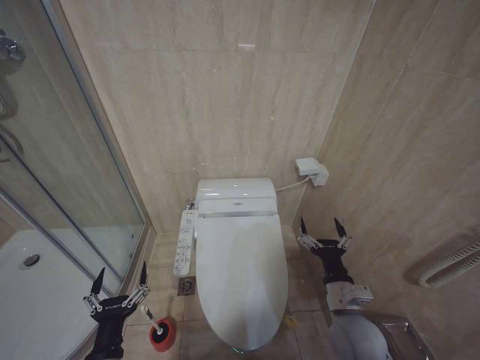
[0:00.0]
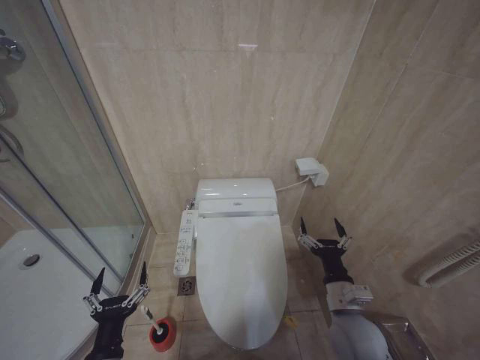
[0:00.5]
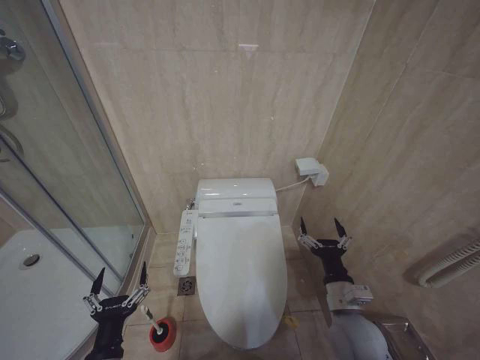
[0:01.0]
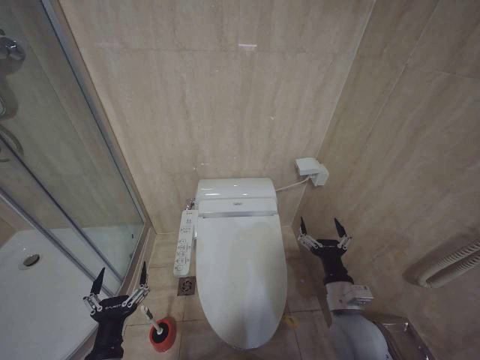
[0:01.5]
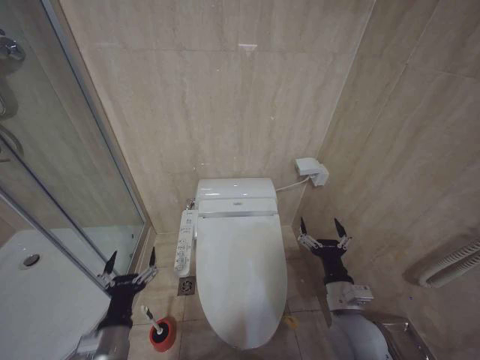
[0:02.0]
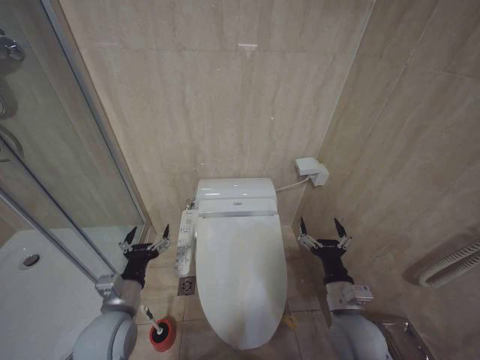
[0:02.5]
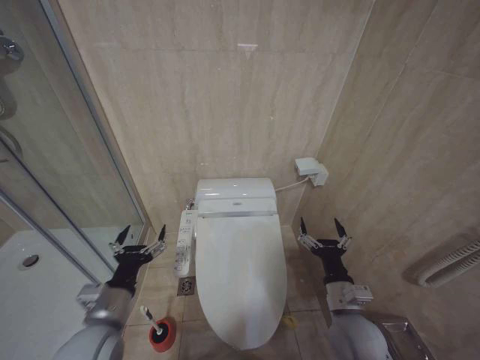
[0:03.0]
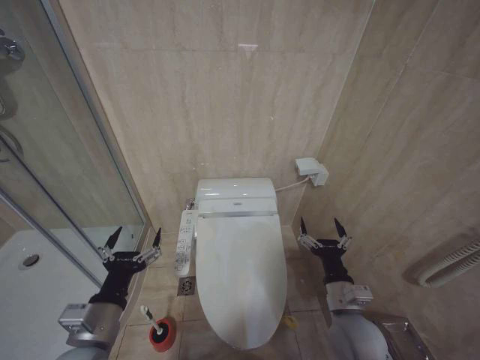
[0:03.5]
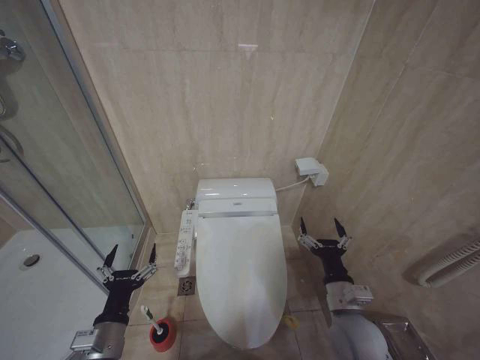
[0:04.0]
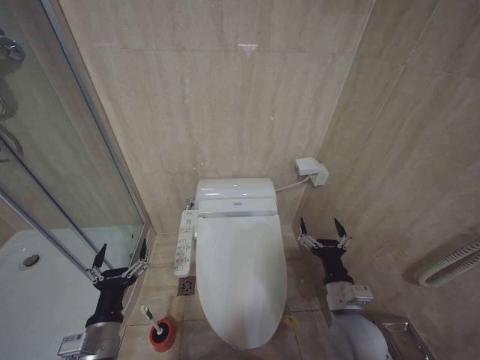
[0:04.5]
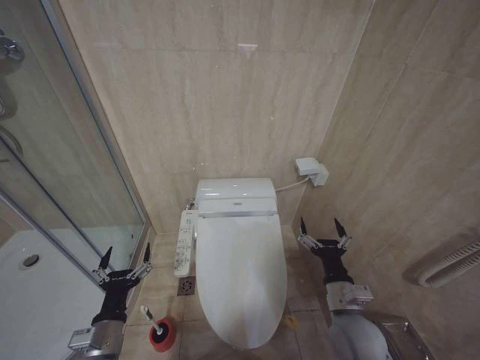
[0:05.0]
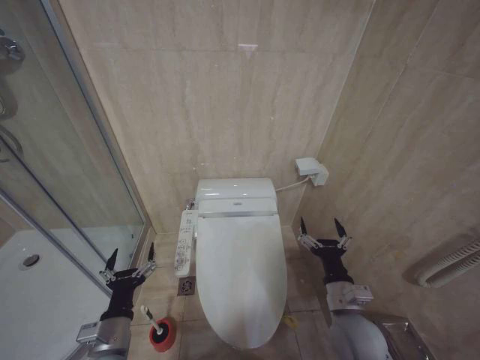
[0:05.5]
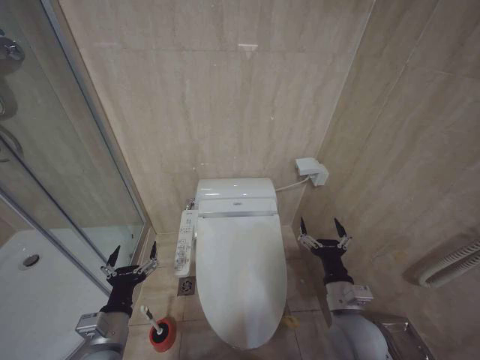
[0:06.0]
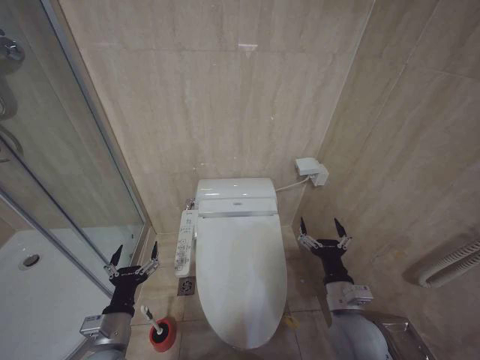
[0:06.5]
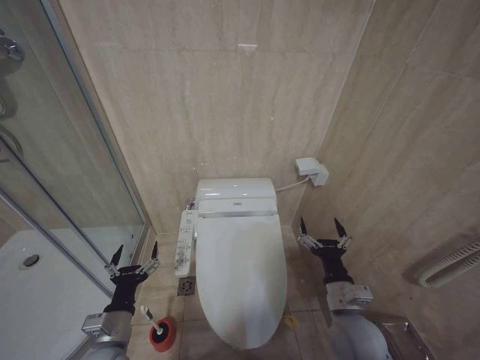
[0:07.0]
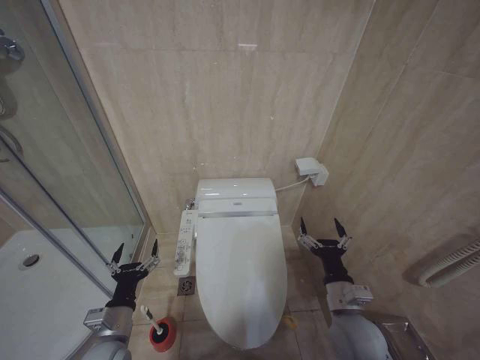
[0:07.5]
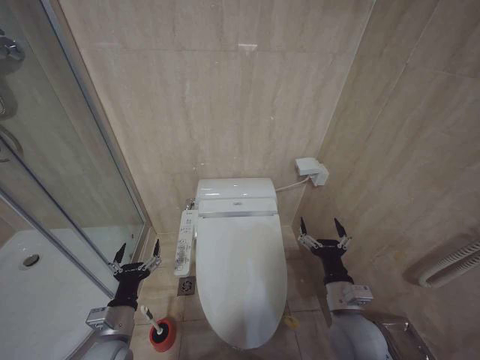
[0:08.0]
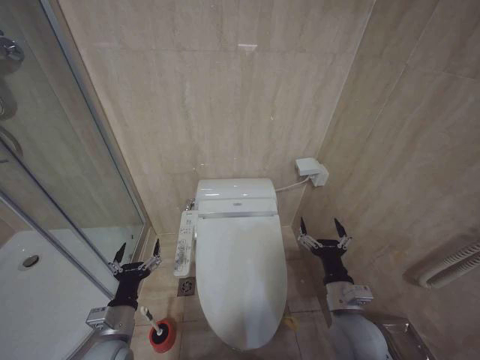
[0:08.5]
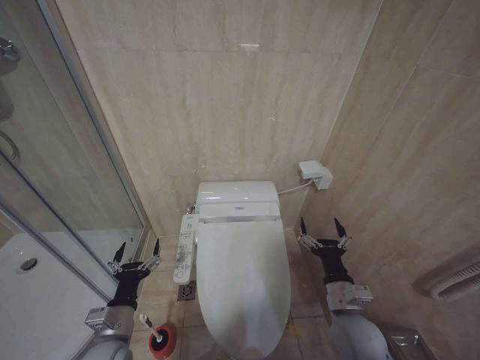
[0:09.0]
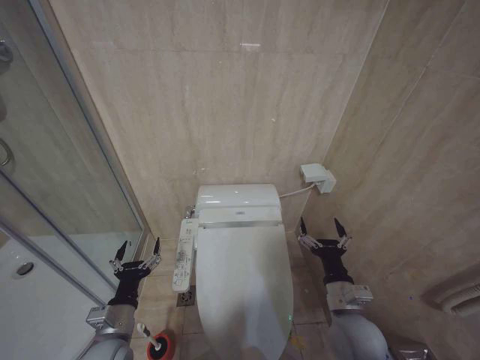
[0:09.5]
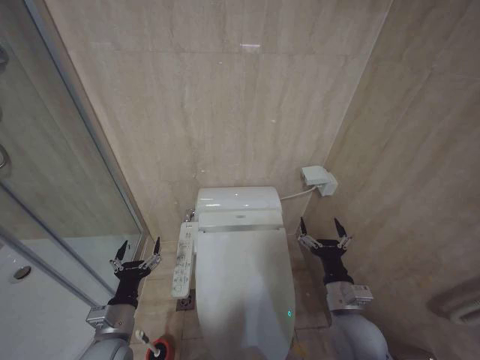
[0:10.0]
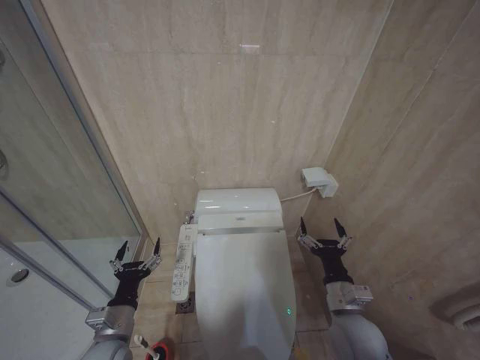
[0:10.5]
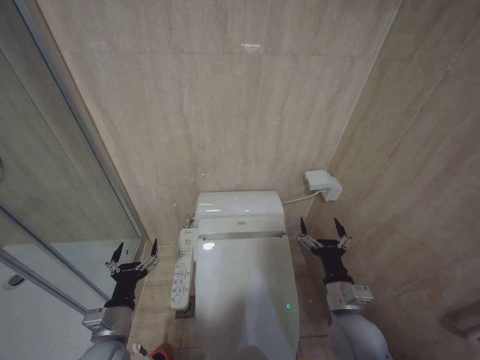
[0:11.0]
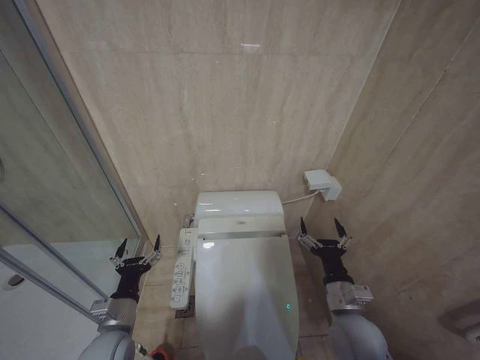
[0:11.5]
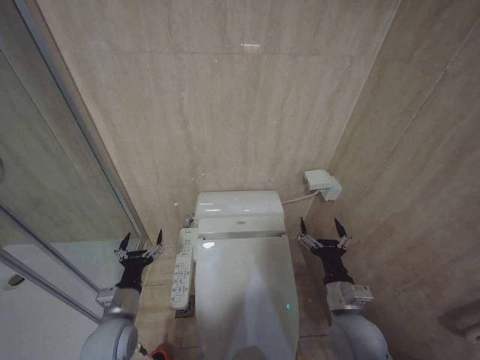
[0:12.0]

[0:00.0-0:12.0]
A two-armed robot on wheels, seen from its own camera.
Task of the whole recording: Open the toilet lid, clean the toilet bowl with a toilet brush, close the toilet lid, and flush.
0:00.0 to 0:02.0: There are only small adjustments of the grippers.
0:02.0 to 0:04.0: The left gripper reaches about 10 cm upward, then returns.
0:04.0 to 0:08.0: The grippers move only a little.
0:08.0 to 0:10.0: Neither gripper changes place.
0:10.0 to 0:12.0: There are only small adjustments of the grippers.

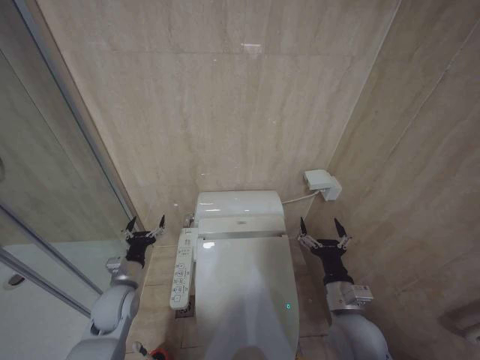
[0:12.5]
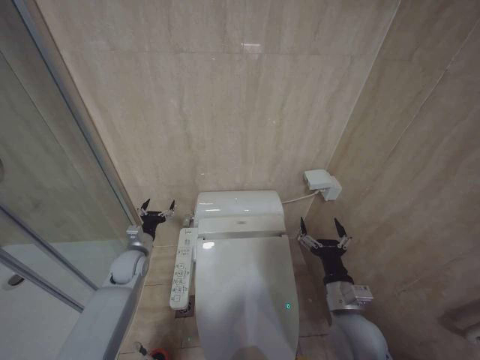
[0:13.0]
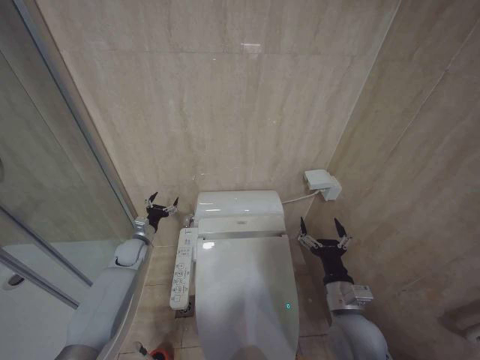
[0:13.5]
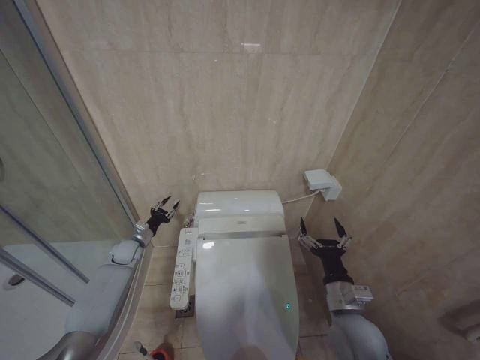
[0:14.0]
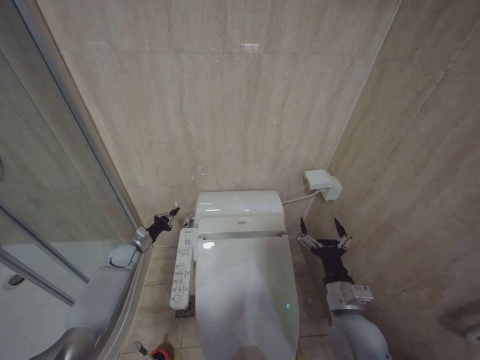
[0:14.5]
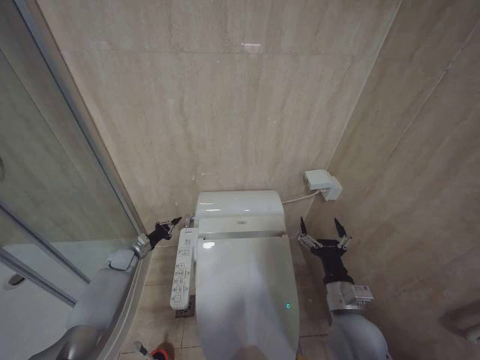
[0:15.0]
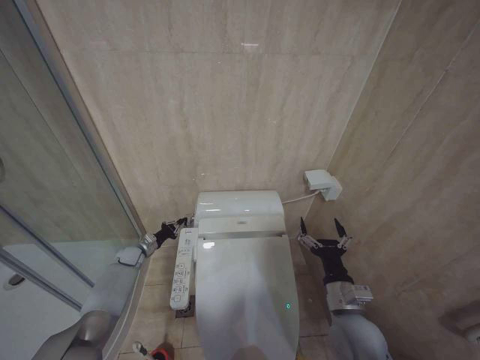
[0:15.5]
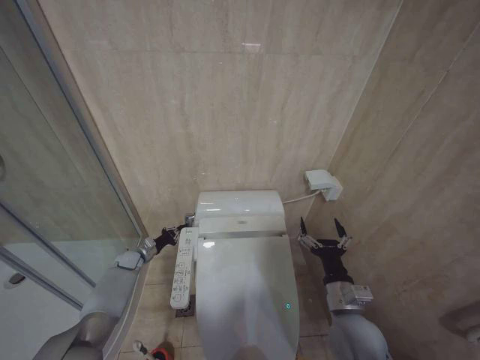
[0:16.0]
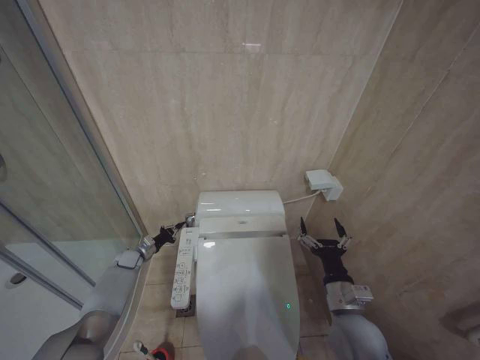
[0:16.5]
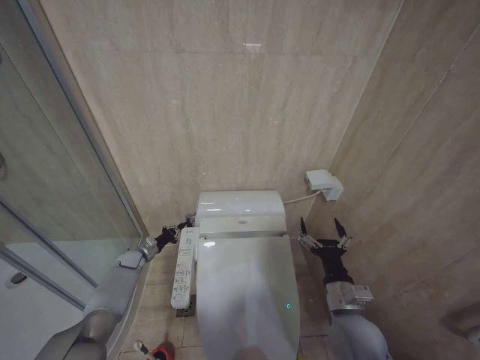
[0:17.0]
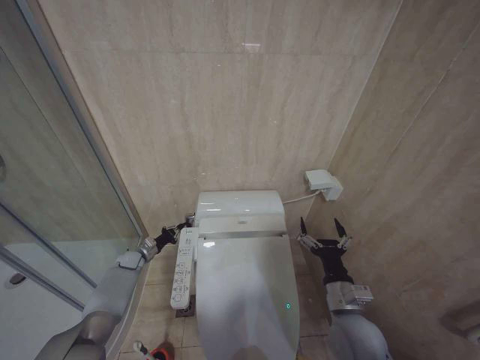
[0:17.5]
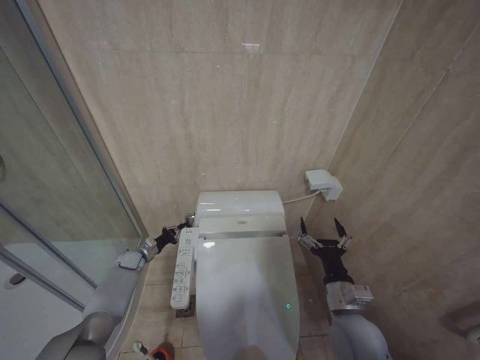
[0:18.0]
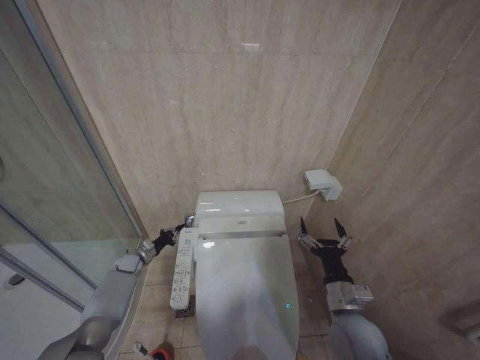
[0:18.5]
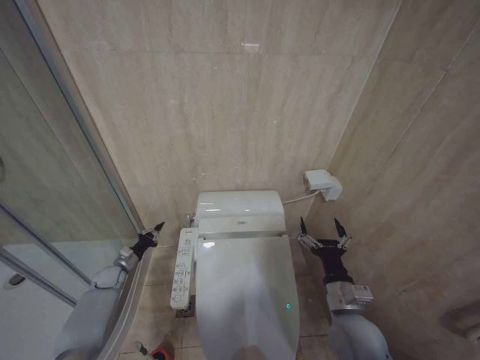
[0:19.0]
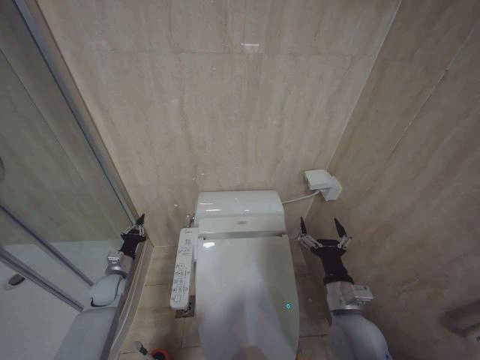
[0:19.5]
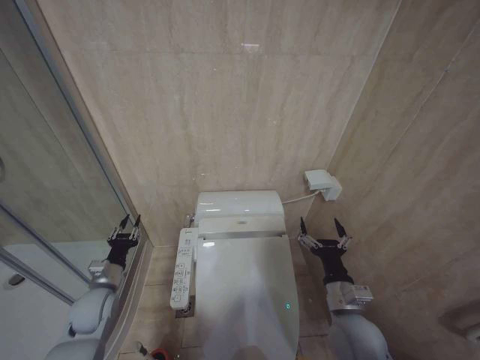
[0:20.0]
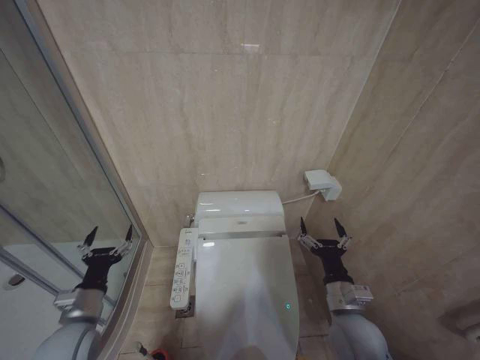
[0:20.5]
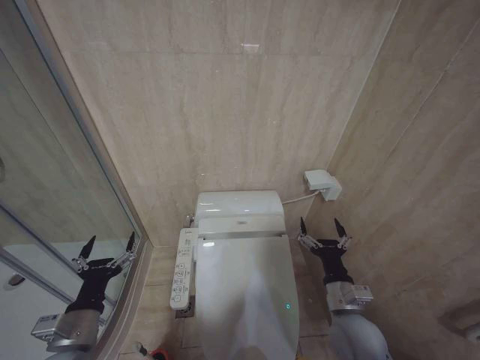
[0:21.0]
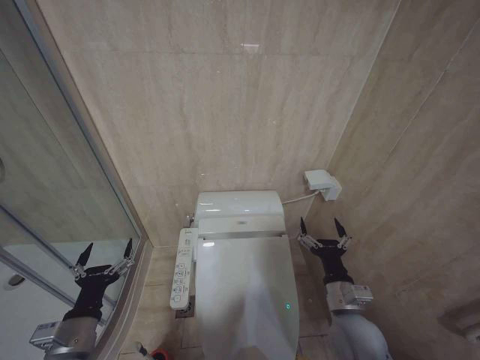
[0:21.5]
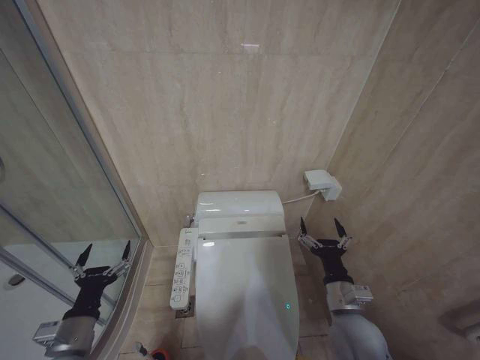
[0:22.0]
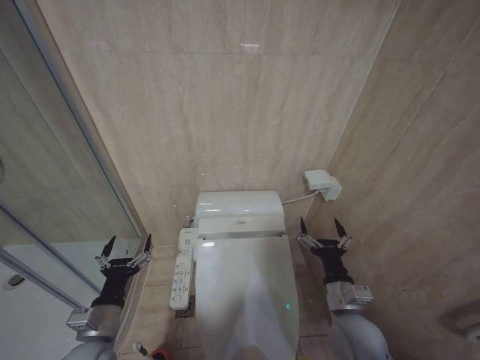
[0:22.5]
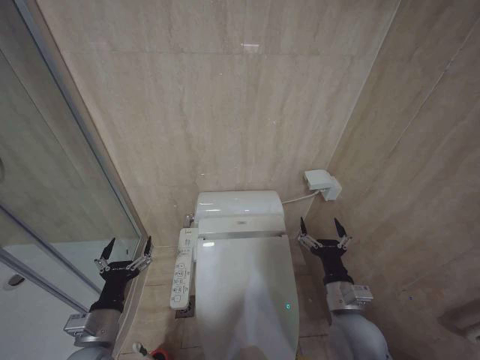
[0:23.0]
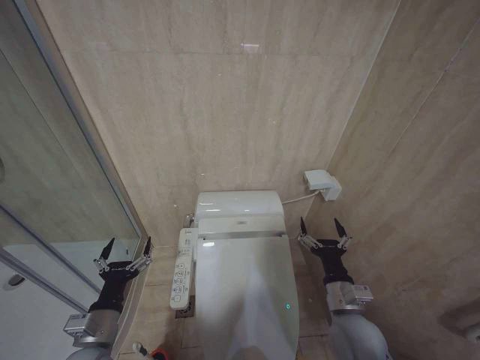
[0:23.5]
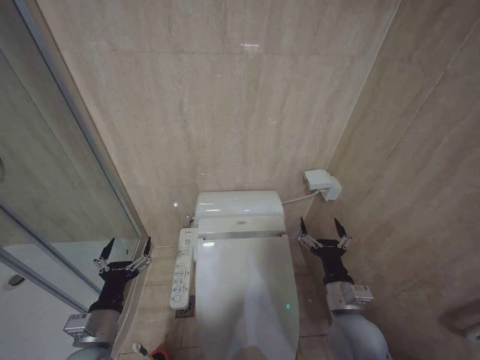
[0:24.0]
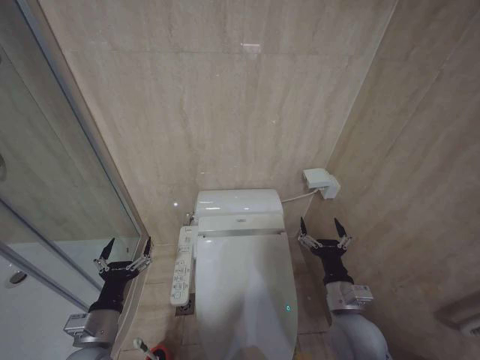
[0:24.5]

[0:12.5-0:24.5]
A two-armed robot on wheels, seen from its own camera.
Task of the whole recording: Open the toilet lid, clean the toilet bowl with a toilet brush, close the toilet lid, and flush.
0:12.5 to 0:14.5: The left gripper moves forward and to the left, roughly 20 cm, and closes its fingers.
0:14.5 to 0:16.5: The left gripper is displaced downward by roughly 5 cm.
0:16.5 to 0:18.5: Both grippers stay put.
0:18.5 to 0:20.5: The left gripper moves backward and upward, roughly 30 cm, and opens.
0:20.5 to 0:22.5: The left gripper ends up roughly 5 cm from where it was.
0:22.5 to 0:24.5: The two grippers keep their place.

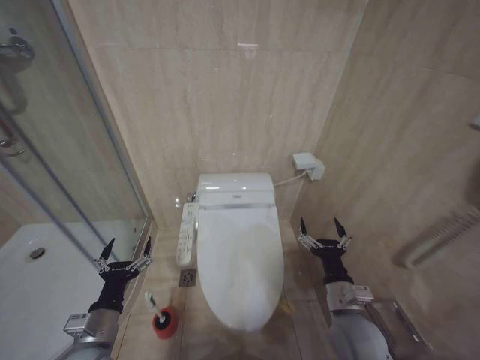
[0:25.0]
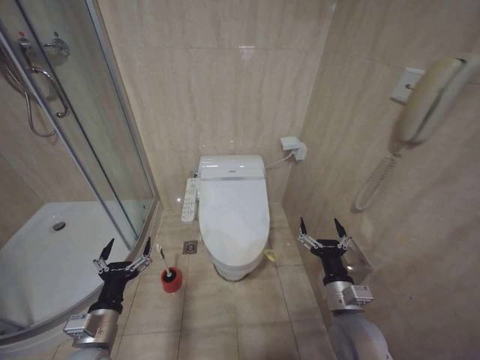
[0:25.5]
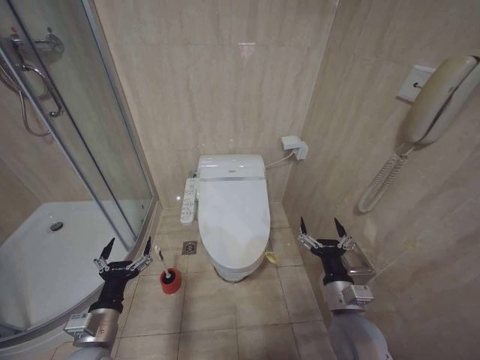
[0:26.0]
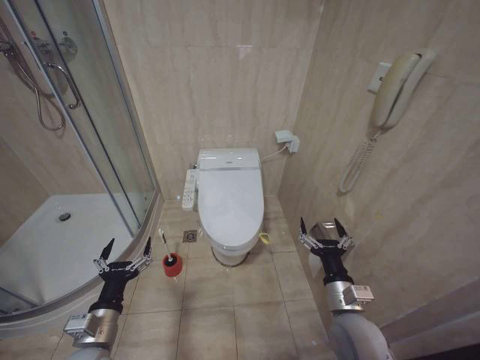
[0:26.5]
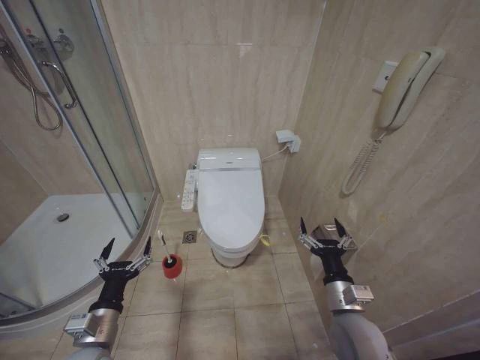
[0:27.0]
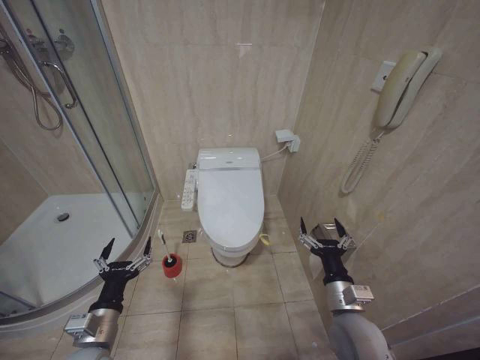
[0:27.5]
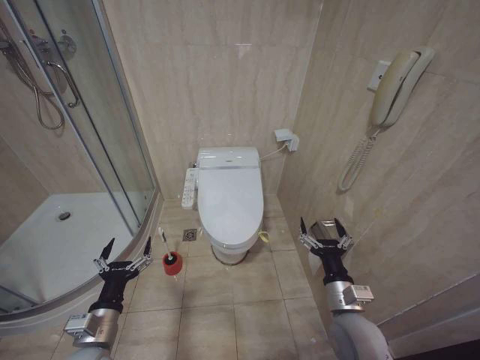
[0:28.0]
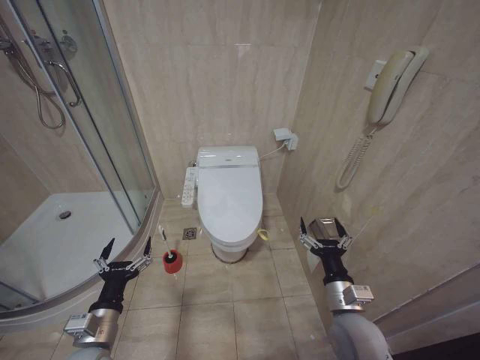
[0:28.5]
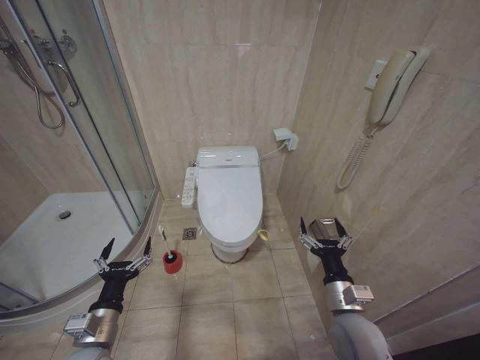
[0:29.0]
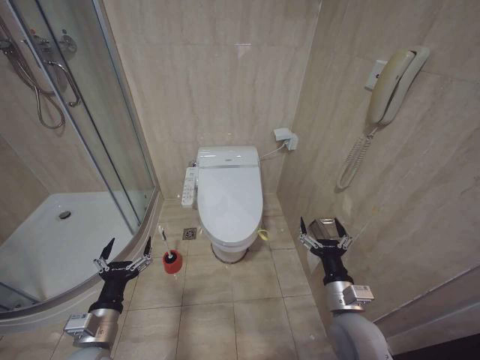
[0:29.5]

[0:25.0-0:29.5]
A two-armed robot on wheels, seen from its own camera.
Task of the whole recording: Open the toilet lid, clean the toilet bowl with a toilet brush, close the toilet lid, and flush.
0:27.0 to 0:29.5: Neither gripper changes place.
